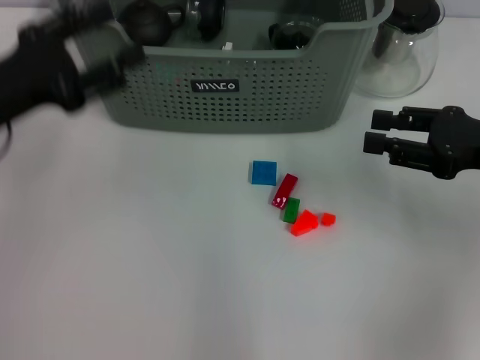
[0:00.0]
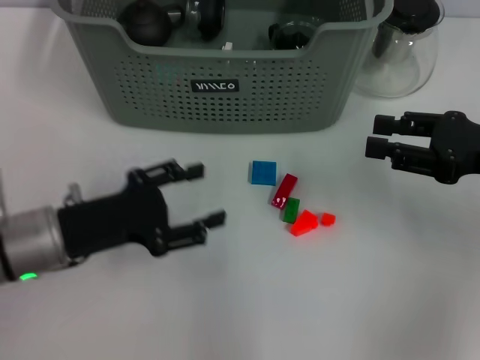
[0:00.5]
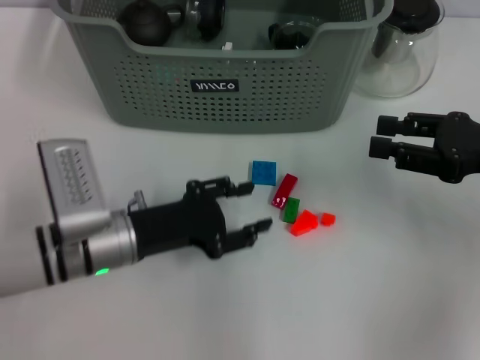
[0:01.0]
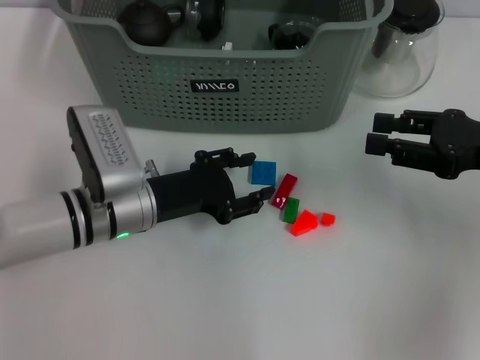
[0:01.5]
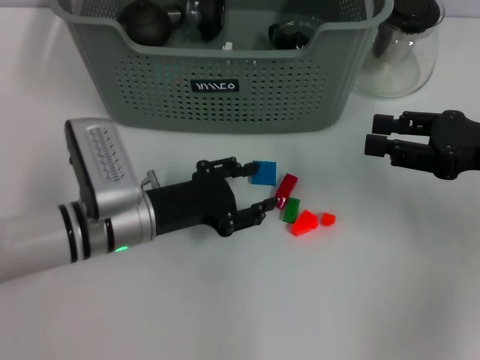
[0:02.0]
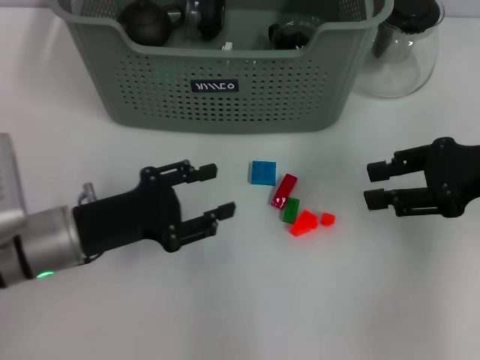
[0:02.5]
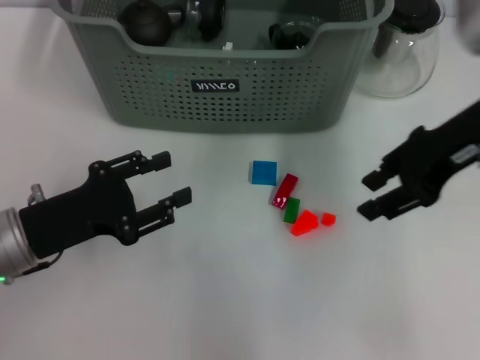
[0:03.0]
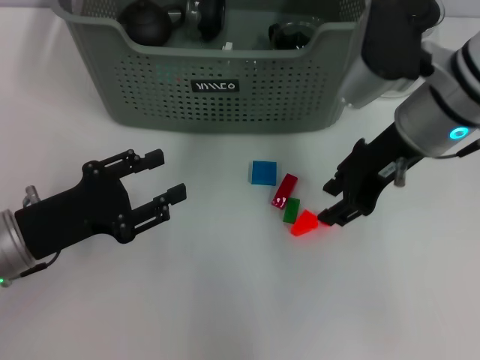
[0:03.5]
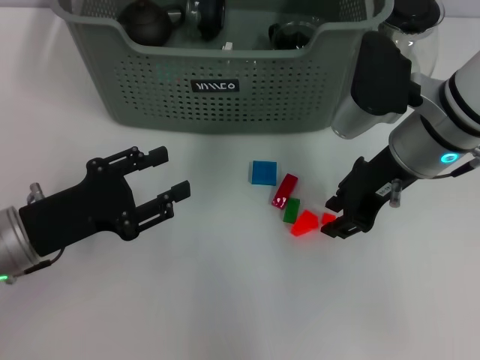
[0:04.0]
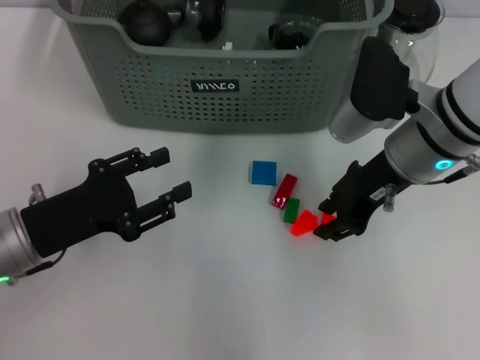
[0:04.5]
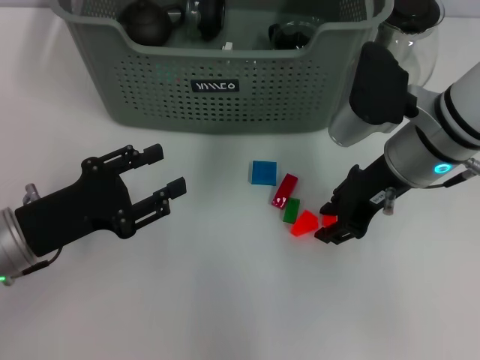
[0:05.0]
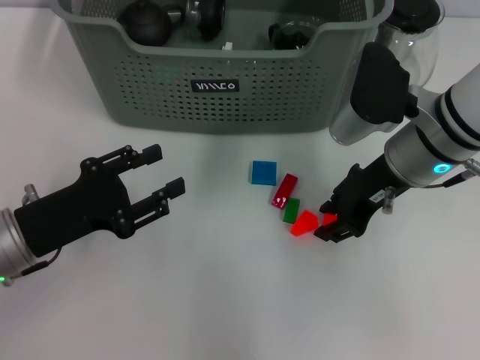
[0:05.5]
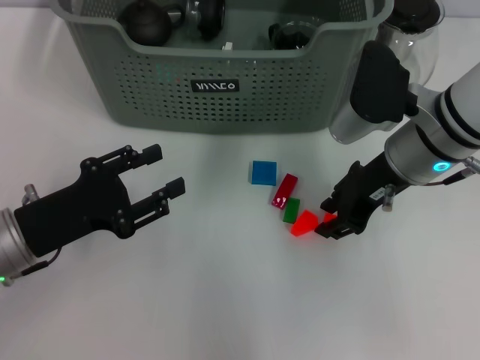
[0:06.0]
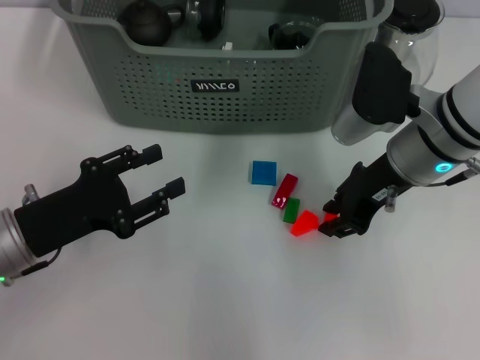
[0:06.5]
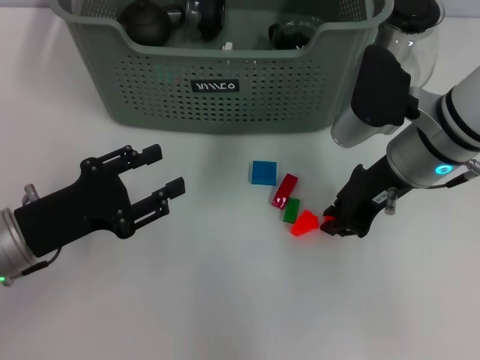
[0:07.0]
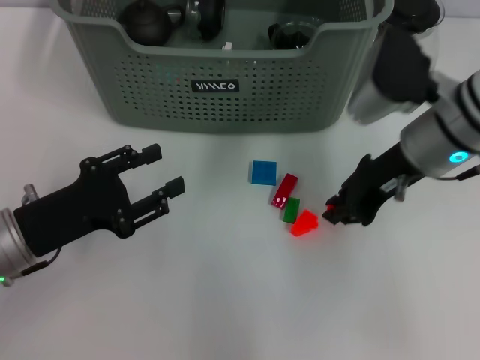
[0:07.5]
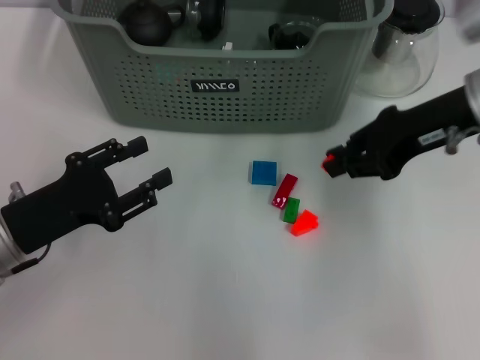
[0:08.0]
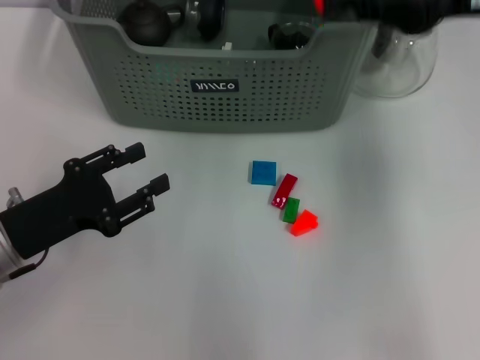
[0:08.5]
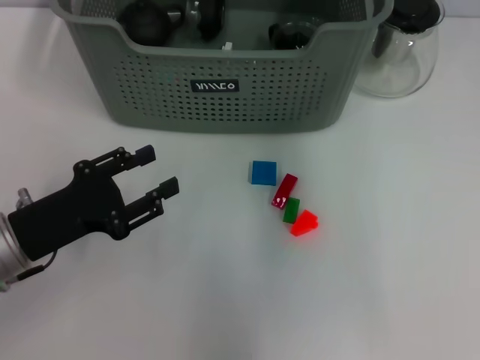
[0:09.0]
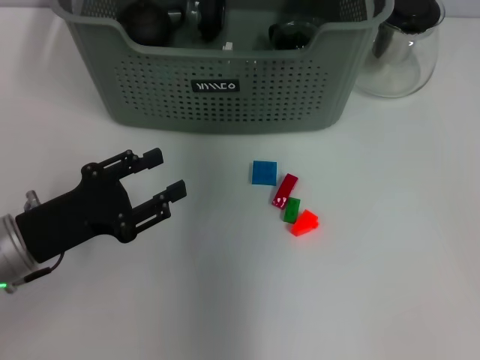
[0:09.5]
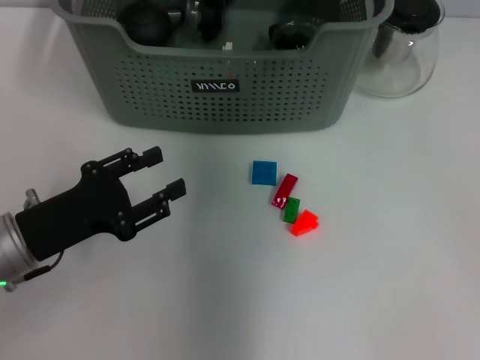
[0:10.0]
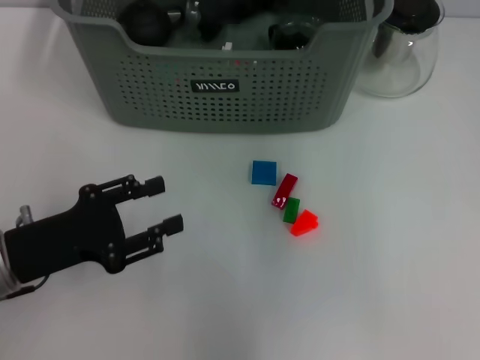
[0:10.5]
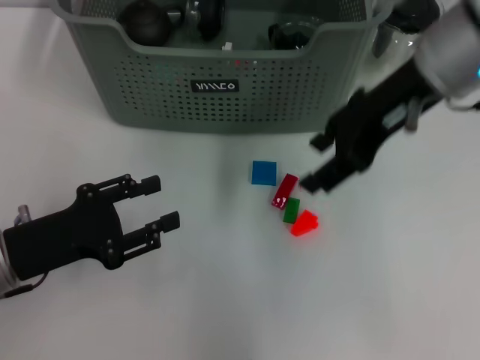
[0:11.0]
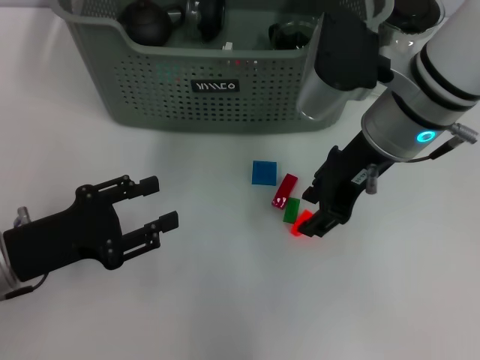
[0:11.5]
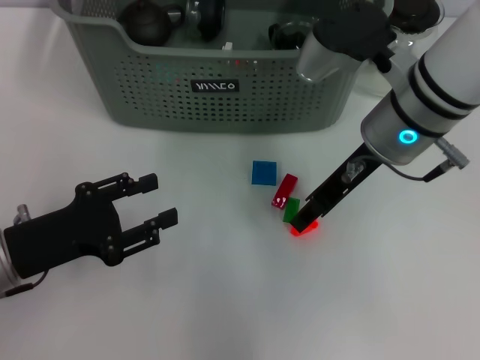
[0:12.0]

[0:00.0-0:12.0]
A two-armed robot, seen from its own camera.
Task of the whole recording: pick up the teacup on the table and place it into the storage bin, pick up the block on the table and place it into the storage bin.
Step, 0:00.0 to 0:07.0: Grasp the orange block with right gripper.
Step, 0:07.5 to 0:09.5: Place the orange block in the storage box with right gripper.
0:00.0 to 0:02.0: The left gripper moves to the right and downward, some 15 cm.
0:02.0 to 0:04.0: The right gripper heads to the left, covering approximately 15 cm. Meanwhile the left gripper travels to the left and backward by roughly 10 cm.
0:04.0 to 0:06.0: The grippers stay close to where they were, moving slightly.
0:06.0 to 0:08.0: The right gripper travels to the right and upward by approximately 10 cm.
0:08.0 to 0:10.0: The right gripper is displaced to the left and forward by approximately 20 cm.
0:10.0 to 0:12.0: The right gripper moves backward, to the right and downward, about 15 cm, and opens.

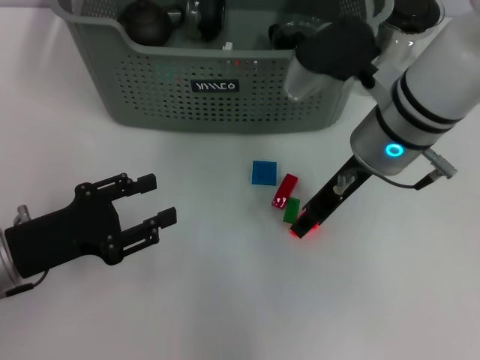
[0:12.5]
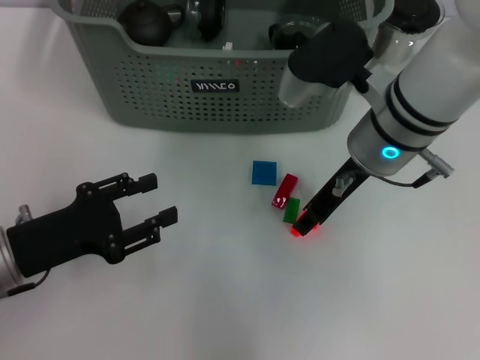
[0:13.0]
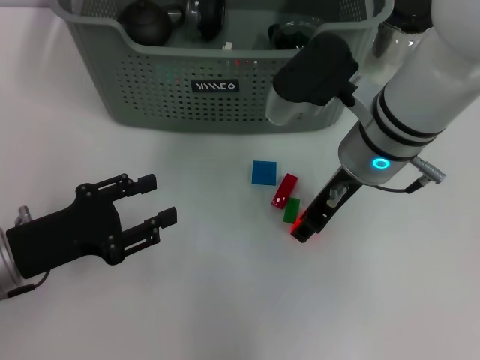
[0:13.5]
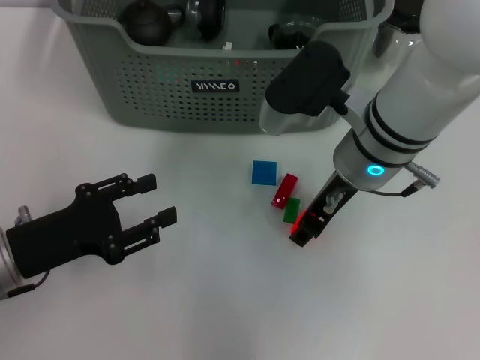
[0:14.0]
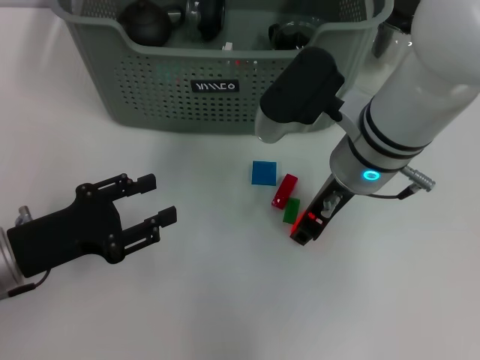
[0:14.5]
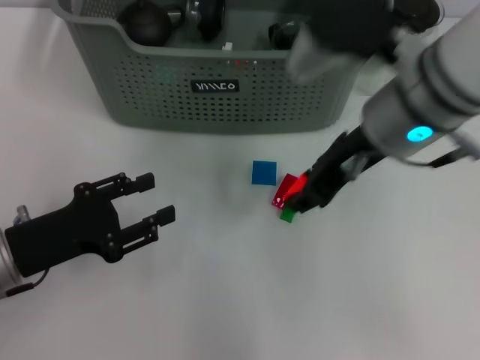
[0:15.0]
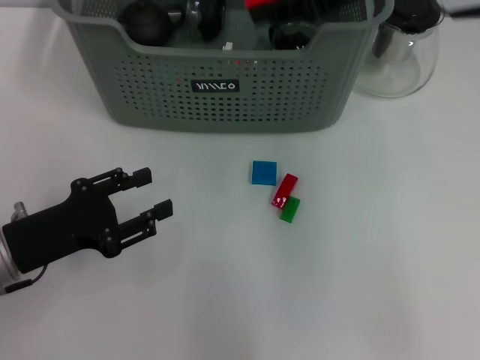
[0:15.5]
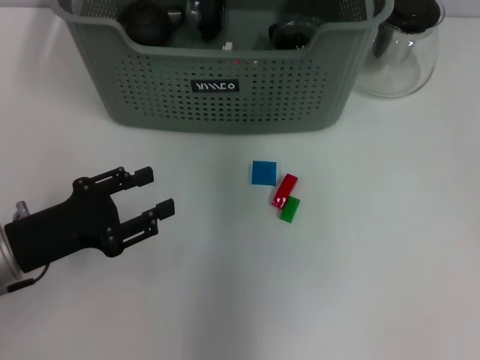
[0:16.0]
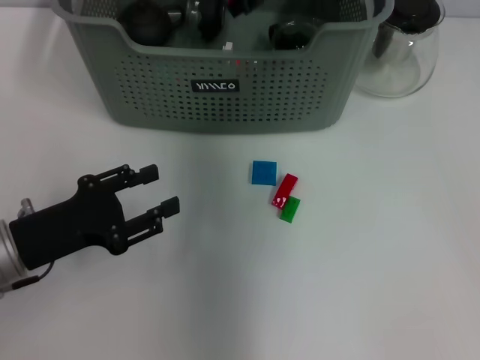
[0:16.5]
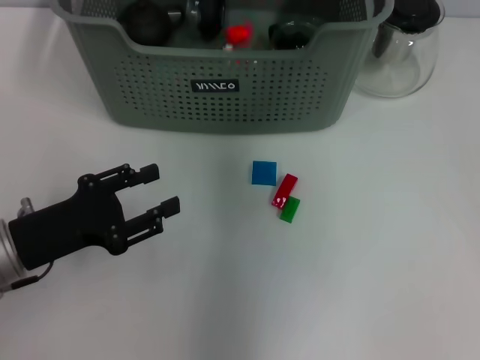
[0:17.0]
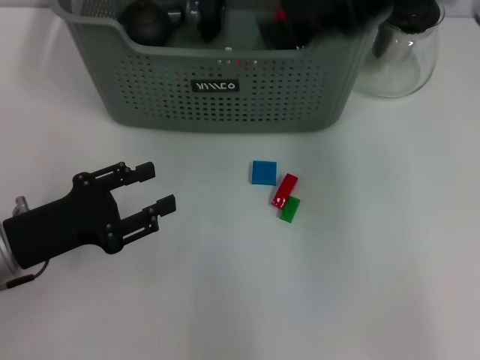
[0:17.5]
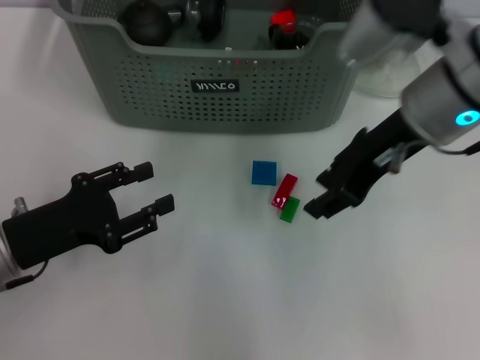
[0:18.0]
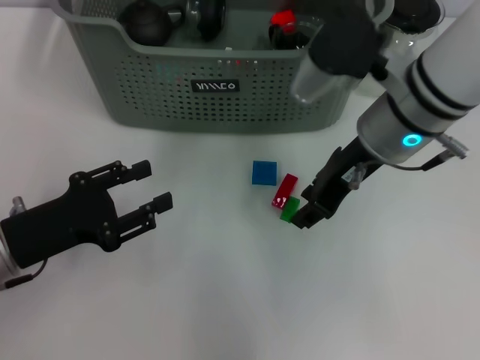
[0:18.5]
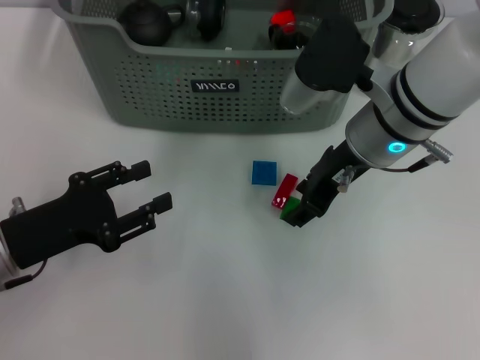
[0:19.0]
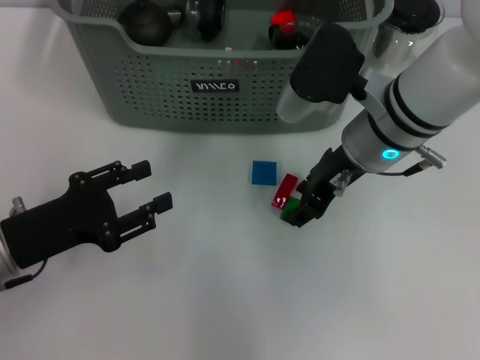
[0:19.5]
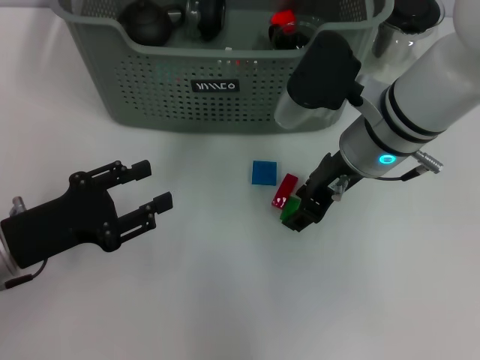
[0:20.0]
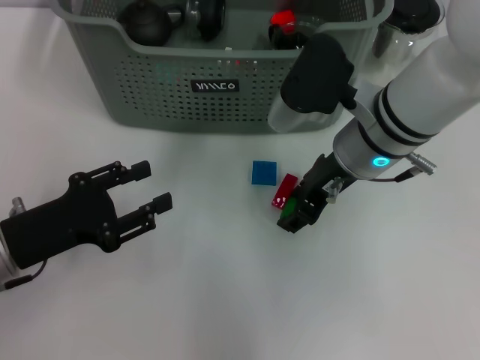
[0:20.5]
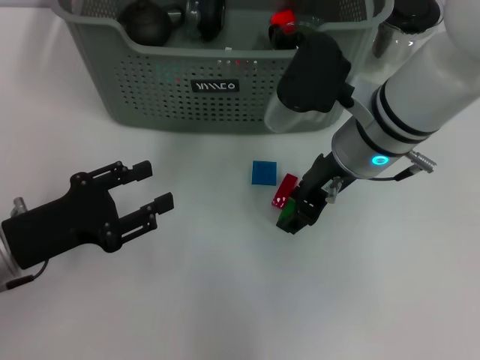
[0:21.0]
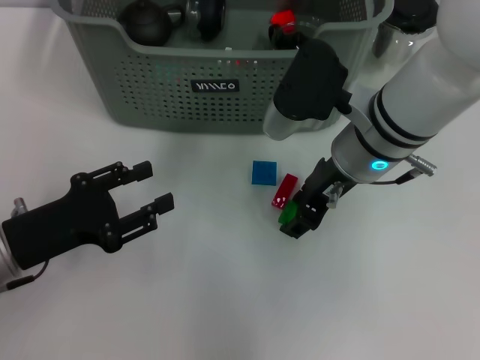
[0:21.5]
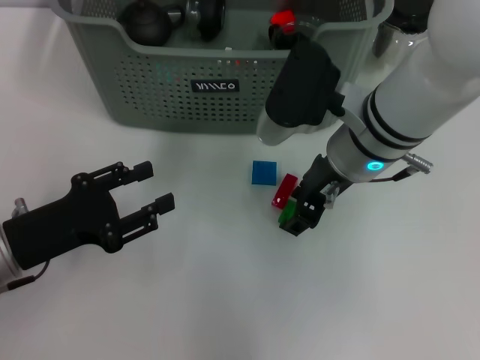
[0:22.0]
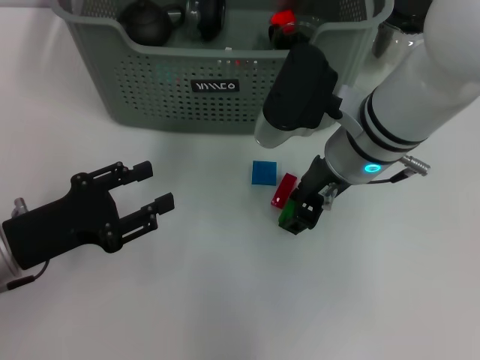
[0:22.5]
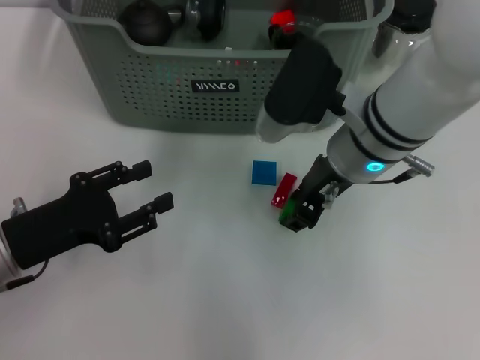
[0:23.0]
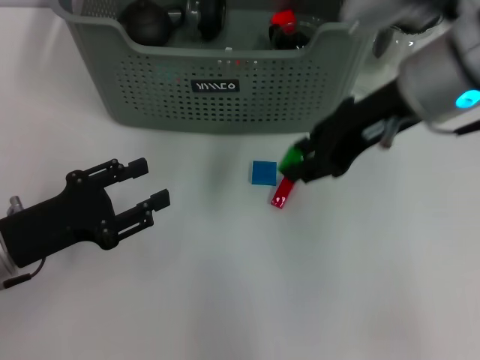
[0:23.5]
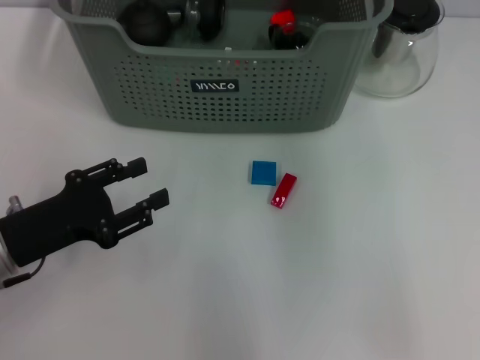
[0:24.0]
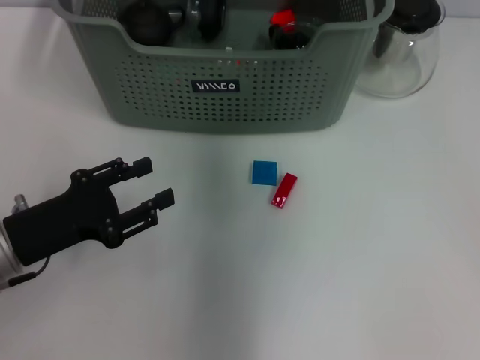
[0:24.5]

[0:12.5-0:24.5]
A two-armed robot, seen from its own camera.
Task of the whole recording: pick up the teacup on the table and place it into the storage bin, pick up the block on the table and place it into the storage bin.
Step, 0:15.0 to 0:17.0: Place the orange block in the storage box with right gripper.
Step, 0:17.5 to 0:22.5: Grasp the green block with right gripper.
0:12.5 to 0:14.5: The grippers stay close to where they were, moving slightly.
0:14.5 to 0:16.5: The right gripper shifts some 15 cm forward and upward.
0:16.5 to 0:18.5: The right gripper heads backward, downward and to the right, covering approximately 15 cm.
0:18.5 to 0:22.5: The grippers stay close to where they were, moving slightly.
0:22.5 to 0:24.5: The right gripper moves forward and upward, approximately 15 cm.

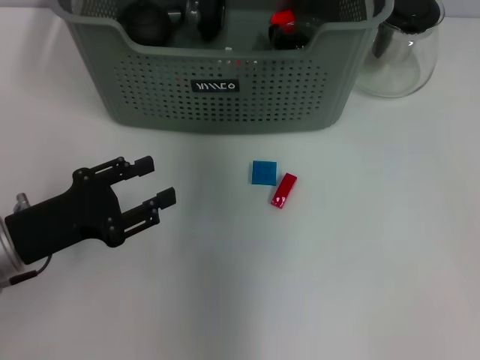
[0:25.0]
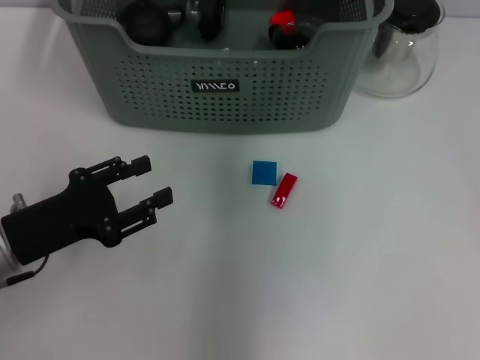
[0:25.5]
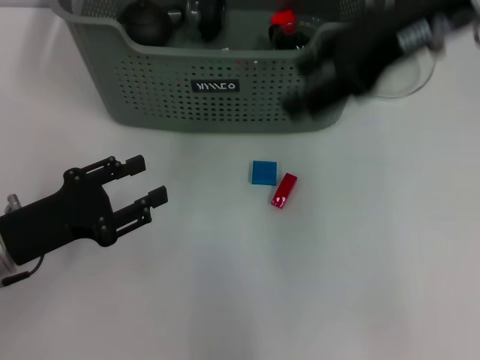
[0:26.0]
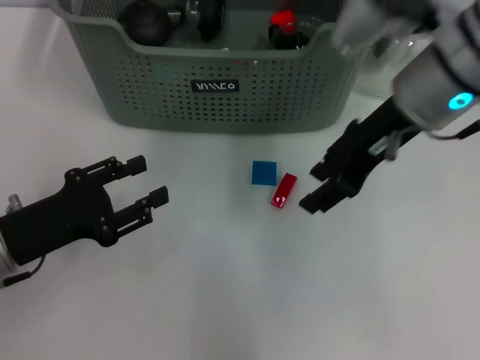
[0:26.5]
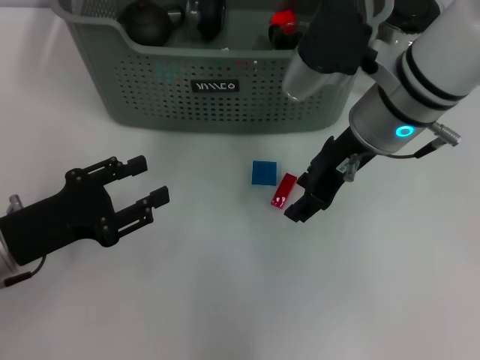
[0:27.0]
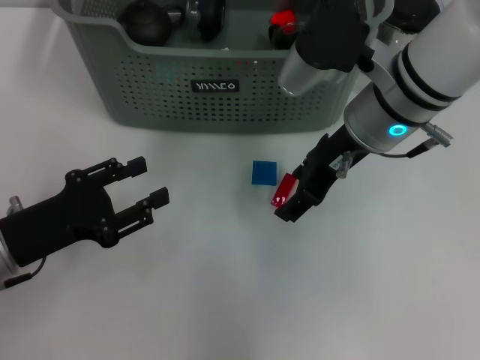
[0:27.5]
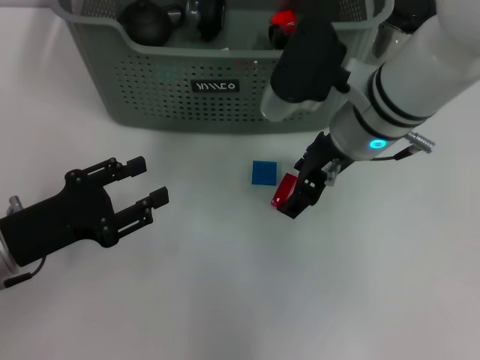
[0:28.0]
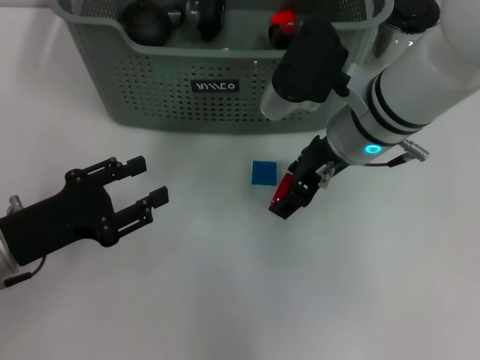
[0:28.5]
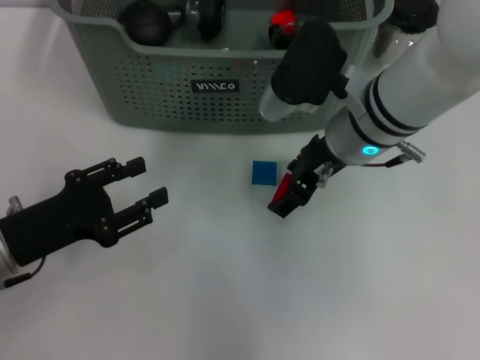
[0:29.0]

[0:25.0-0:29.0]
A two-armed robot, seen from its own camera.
Task of the whole recording: pick up the teacup on the table and place it into the storage bin, pick up the block on the table and place it into the storage bin.
0:25.0 to 0:27.0: The right gripper heads backward, downward and to the right, covering roughly 15 cm.
0:27.0 to 0:29.0: The grippers stay close to where they were, moving slightly.
